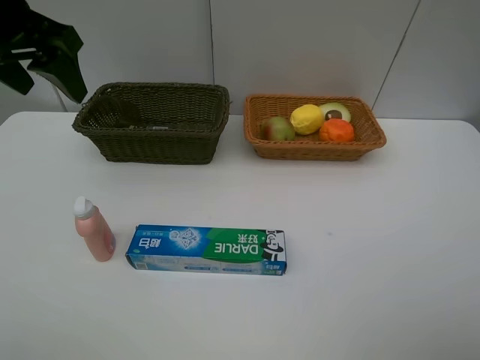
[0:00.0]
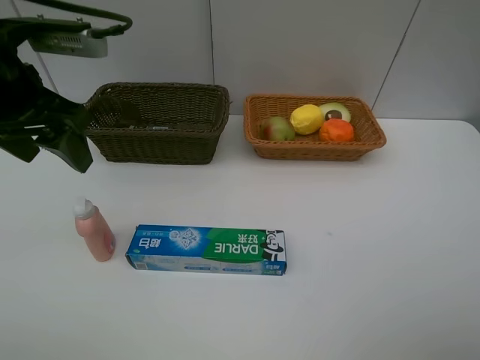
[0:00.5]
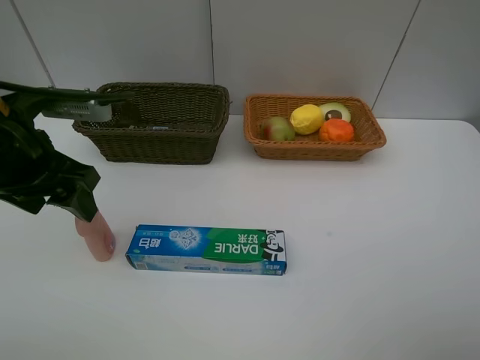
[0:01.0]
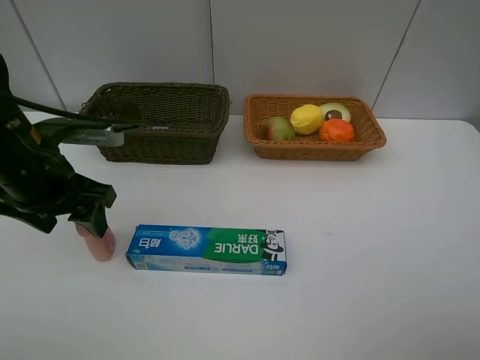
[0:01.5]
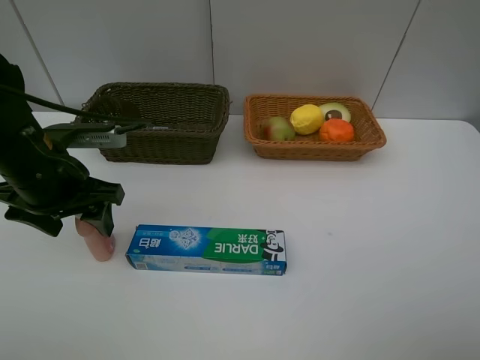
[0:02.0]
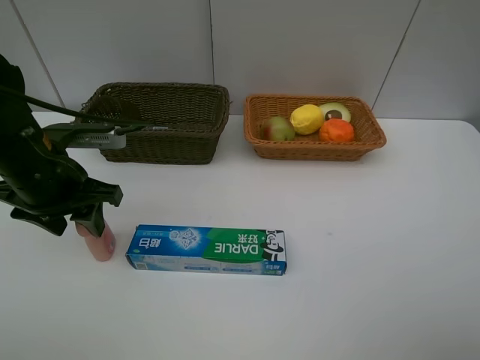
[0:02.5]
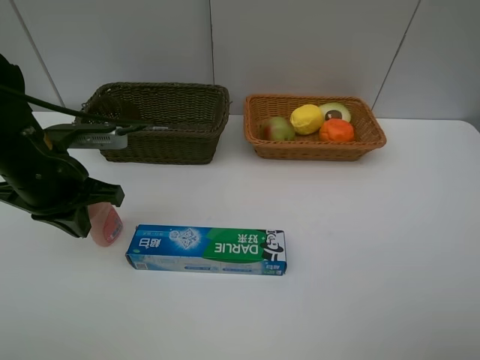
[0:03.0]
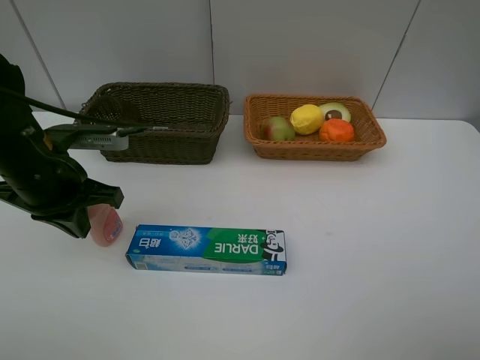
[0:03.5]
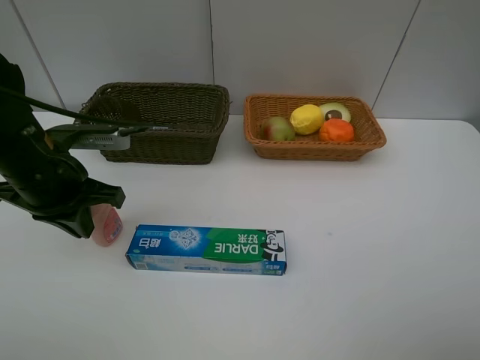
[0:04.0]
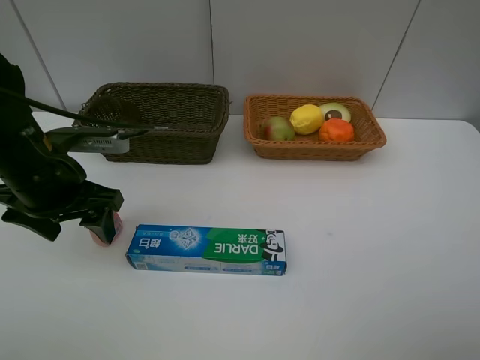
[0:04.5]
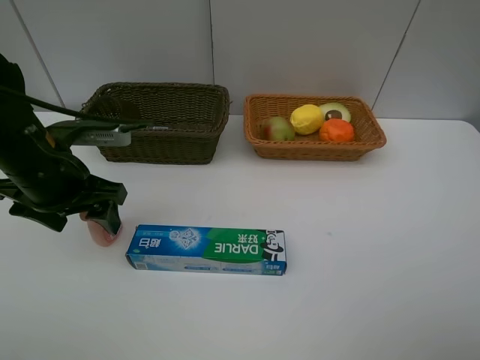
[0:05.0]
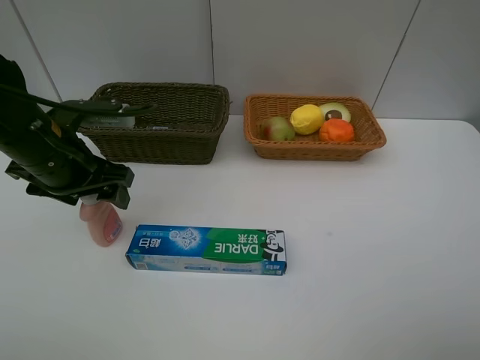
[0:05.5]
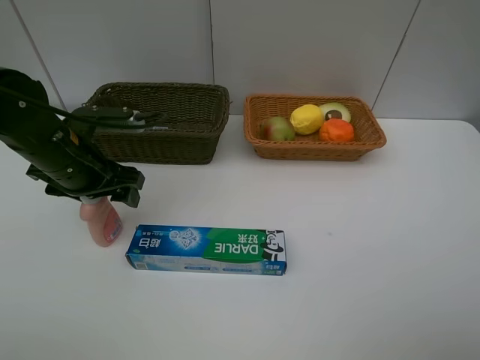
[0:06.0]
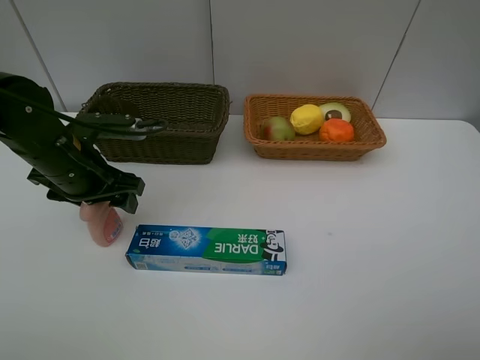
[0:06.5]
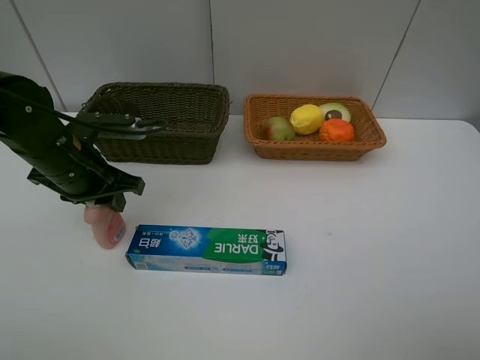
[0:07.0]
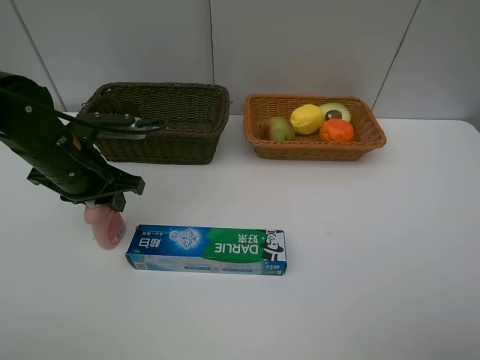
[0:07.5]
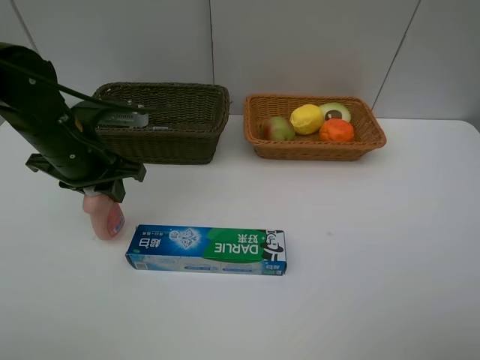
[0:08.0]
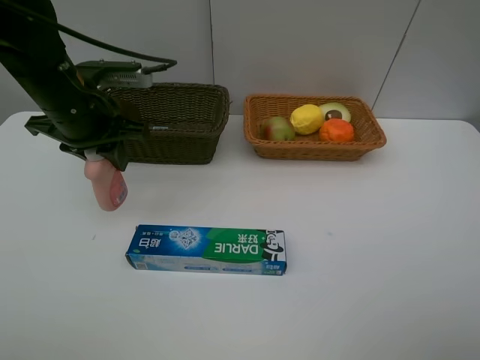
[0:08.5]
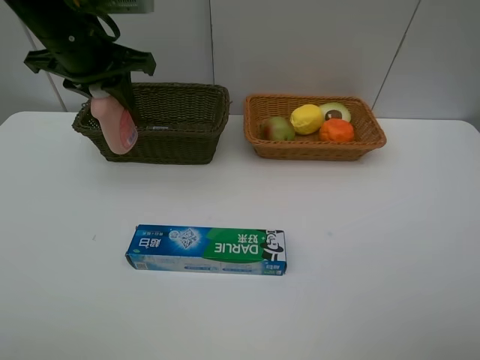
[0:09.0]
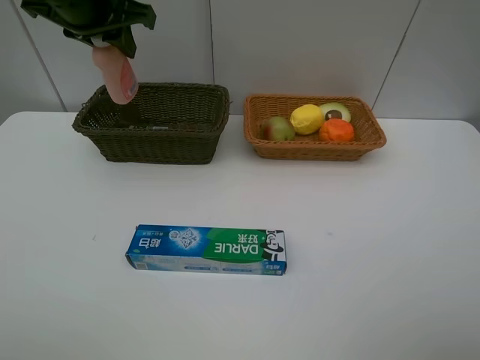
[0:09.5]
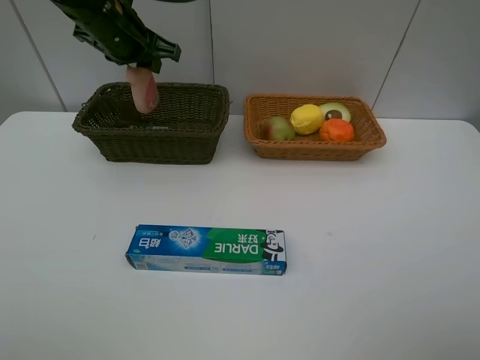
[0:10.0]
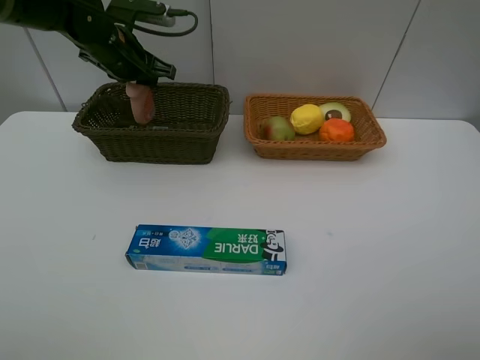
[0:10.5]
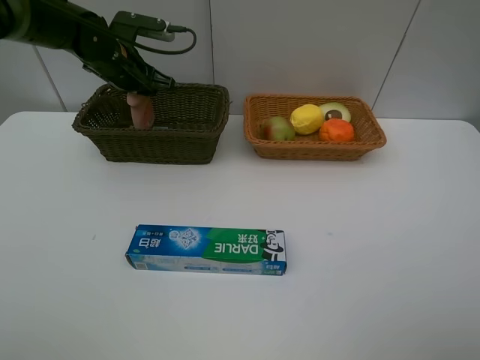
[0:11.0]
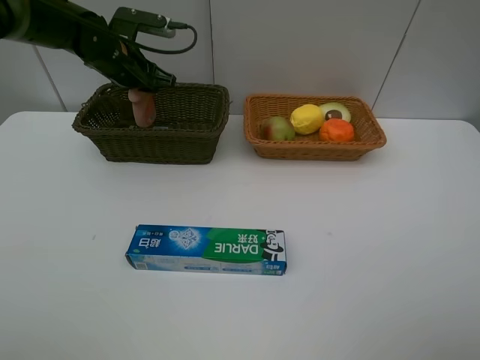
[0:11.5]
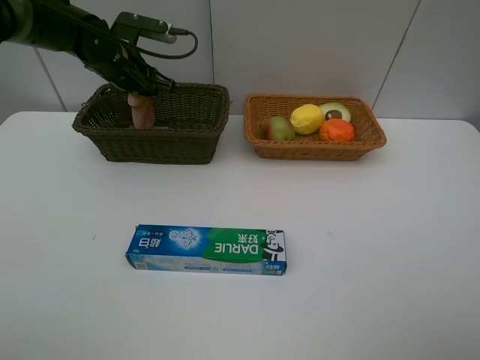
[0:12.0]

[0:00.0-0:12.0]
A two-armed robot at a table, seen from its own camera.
Task of the whole recording: Place multiple objects separately in different baskets.
Step, 0:00.0 to 0:08.0: Pick up the laundry detergent with left gripper.
0:00.0 to 0:02.0: The left gripper moves downward, some 15 cm.
0:02.0 to 0:04.0: The left gripper closes.
0:04.0 to 0:06.0: The left gripper opens.
0:06.0 to 0:08.0: The left gripper closes.
0:08.0 to 0:10.0: The left gripper is displaced forward and upward by approximately 15 cm.
0:10.0 to 0:12.0: The left gripper is displaced downward by about 5 cm.

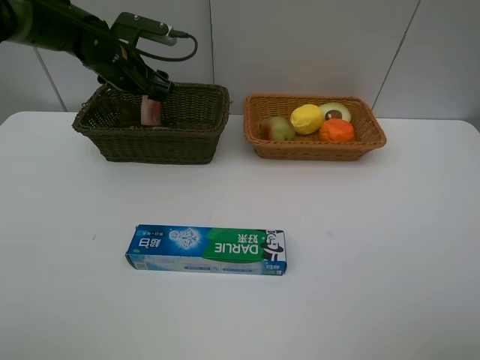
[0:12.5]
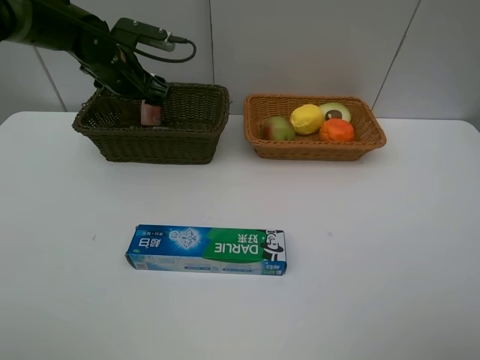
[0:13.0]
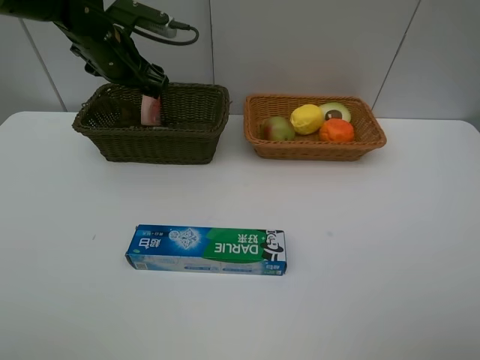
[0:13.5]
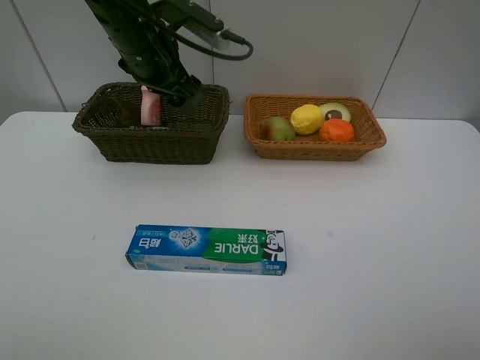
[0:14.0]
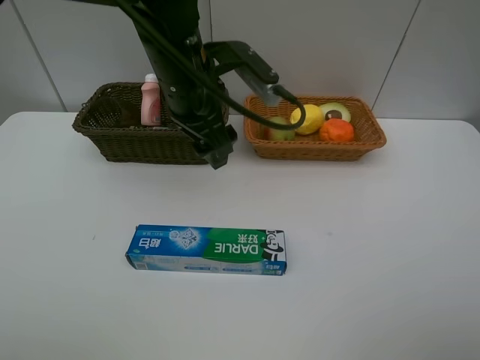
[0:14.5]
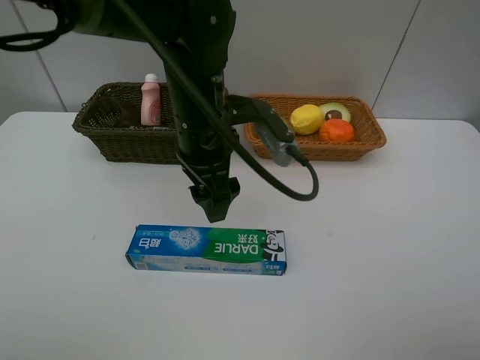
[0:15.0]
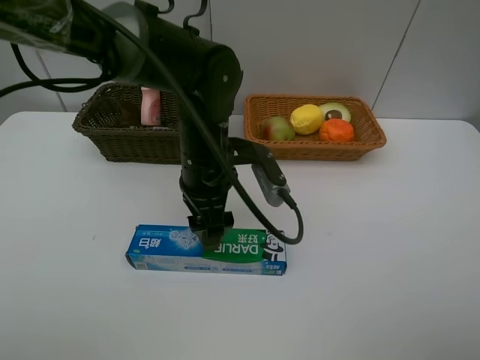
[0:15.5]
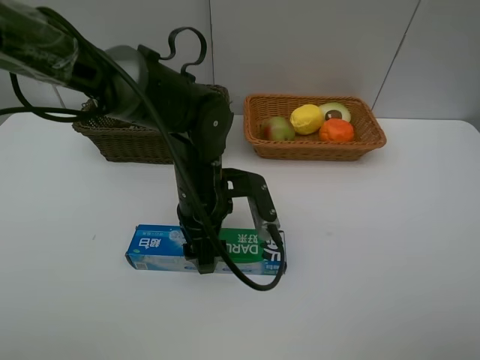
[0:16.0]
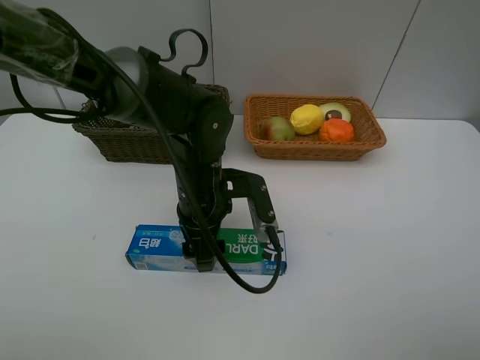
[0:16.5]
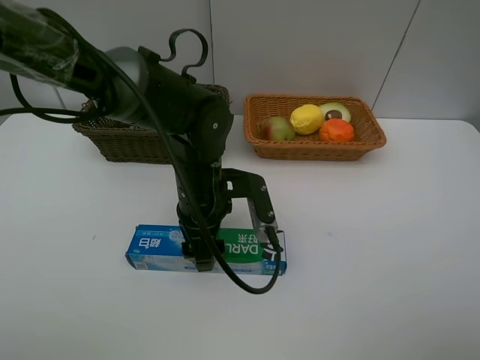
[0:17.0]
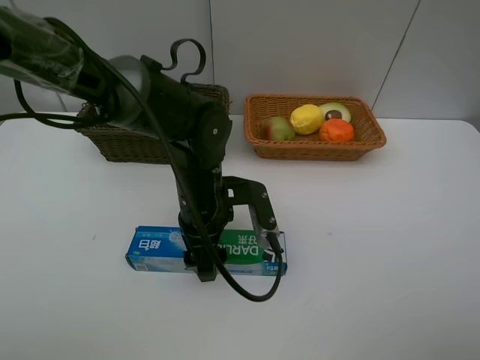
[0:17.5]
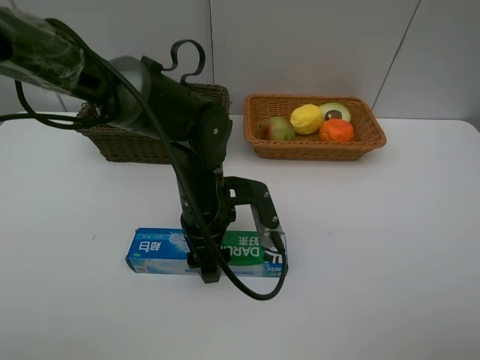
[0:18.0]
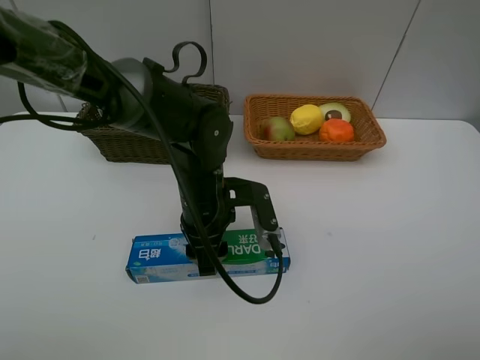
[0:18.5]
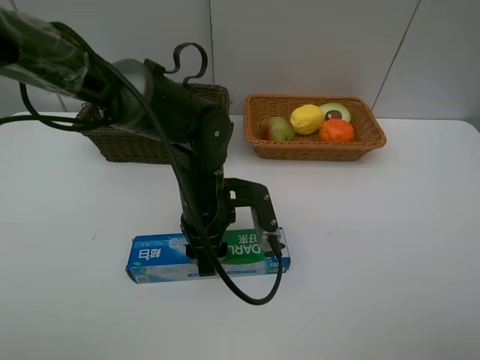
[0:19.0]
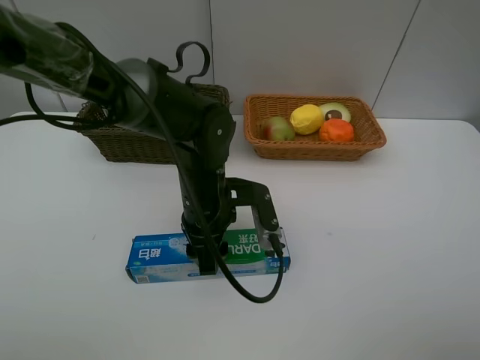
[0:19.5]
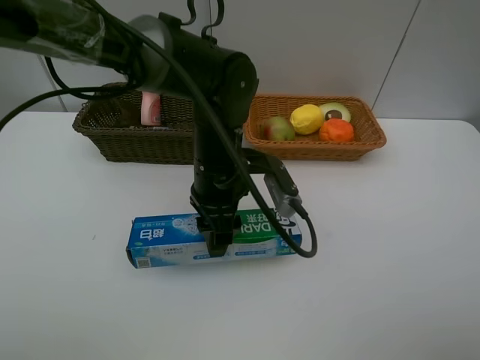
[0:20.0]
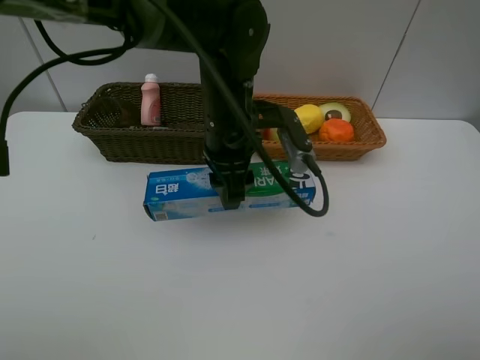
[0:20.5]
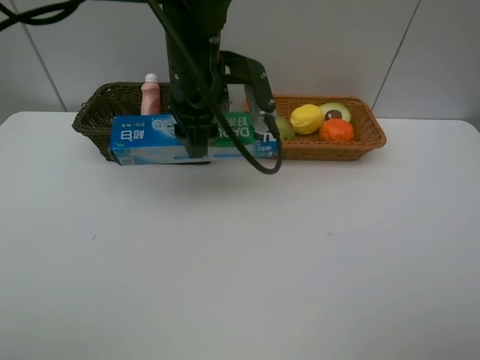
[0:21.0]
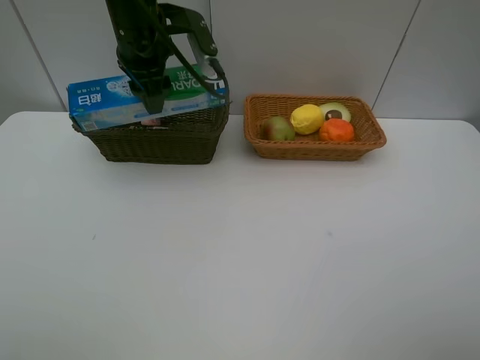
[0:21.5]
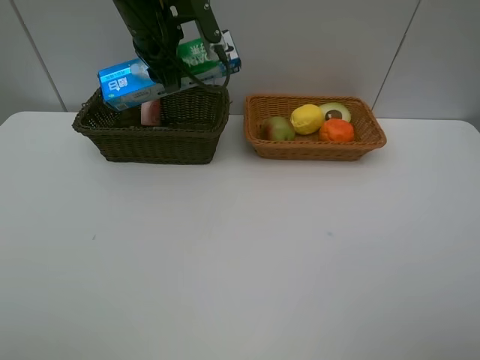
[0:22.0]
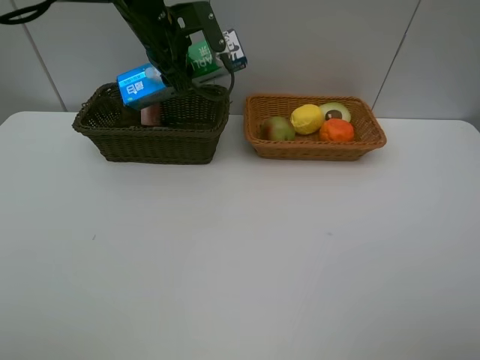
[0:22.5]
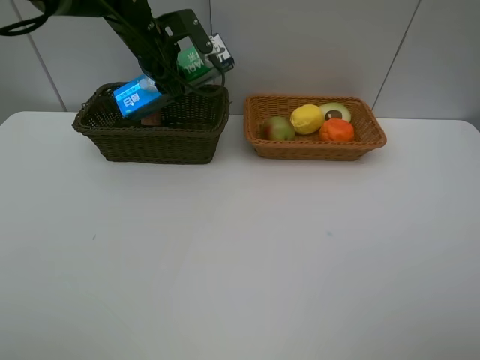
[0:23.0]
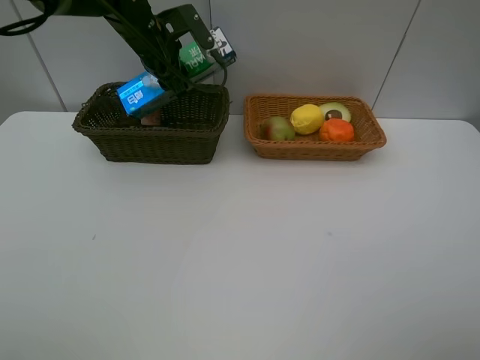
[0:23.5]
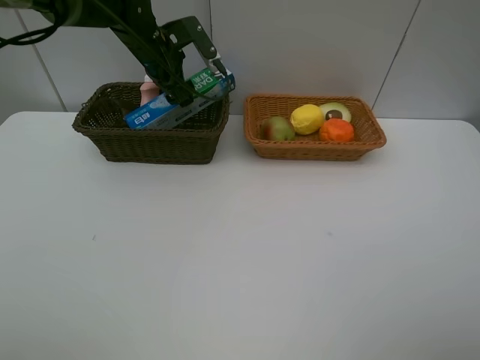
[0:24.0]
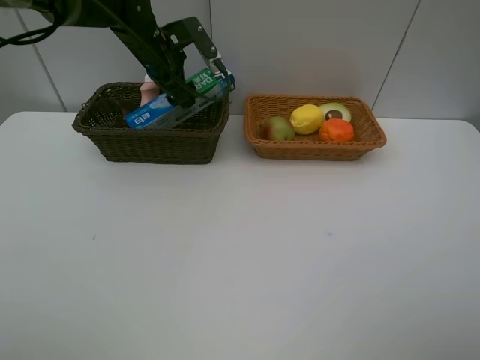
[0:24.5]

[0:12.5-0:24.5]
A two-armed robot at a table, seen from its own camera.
Task of the whole recording: Place multiple objects separately in different baskets.
Step, 0:14.0 to 0:19.5: Pick up toothpaste with left gripper.
0:12.5 to 0:14.5: The left gripper moves backward and to the right, approximately 20 cm.
0:14.5 to 0:16.5: The left gripper shifts approximately 10 cm downward.
0:16.5 to 0:18.5: Neither gripper changes place.
0:18.5 to 0:20.5: The left gripper is displaced upward by approximately 10 cm.
0:20.5 to 0:22.5: The left gripper heads forward and to the left, covering approximately 20 cm.
0:22.5 to 0:24.5: There are only small adjustments of the grippers.

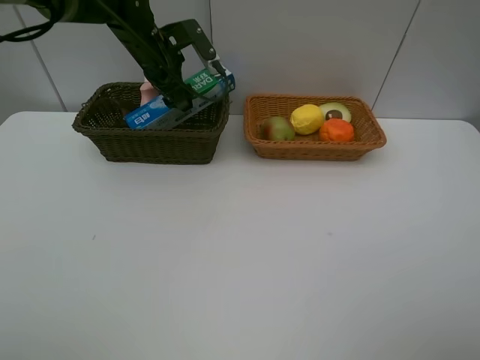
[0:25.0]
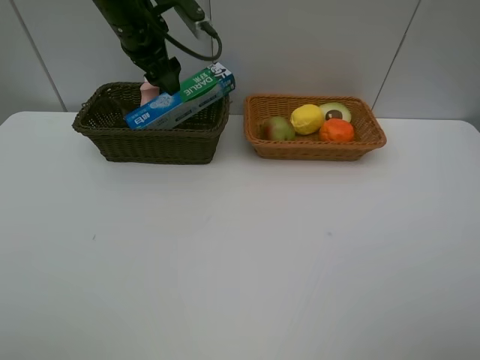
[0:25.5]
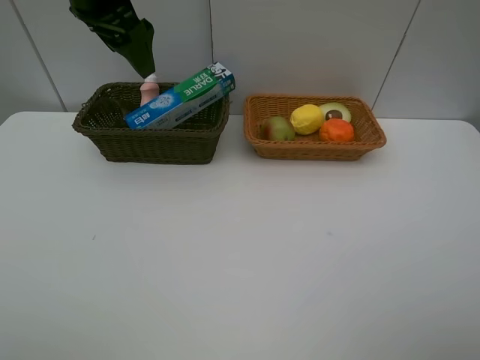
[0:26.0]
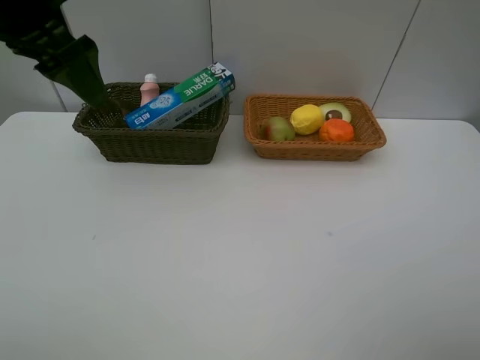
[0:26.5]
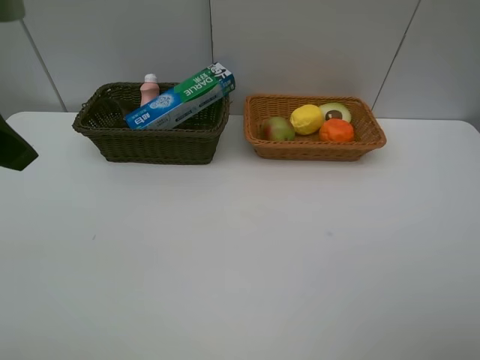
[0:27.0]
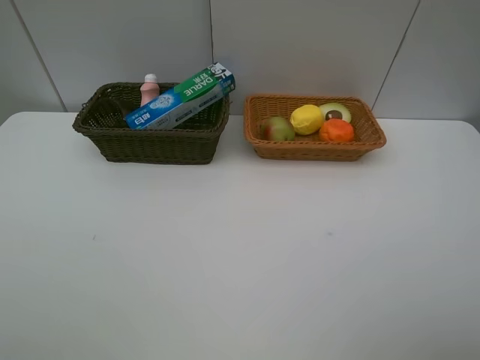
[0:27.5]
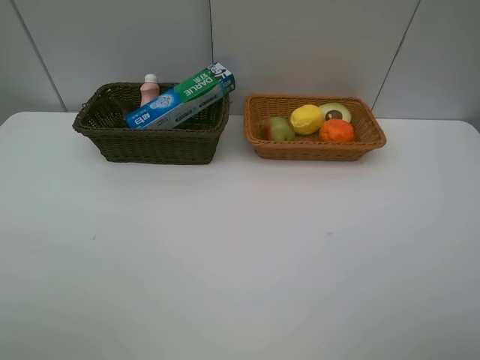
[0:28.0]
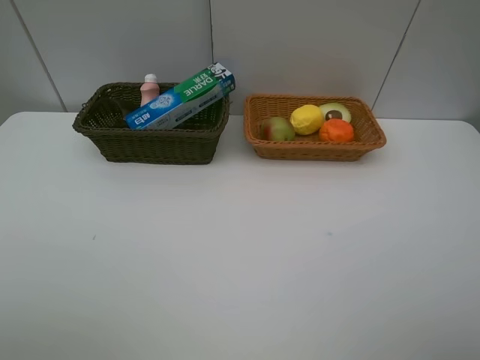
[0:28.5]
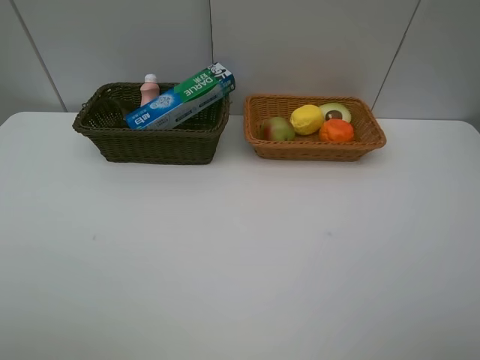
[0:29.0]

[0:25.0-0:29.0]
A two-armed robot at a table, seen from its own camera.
Task of the whole recording: Place multiple objects separately in different baskets.
0:25.0 to 0:27.0: The left gripper moves backward and upward, some 35 cm.
0:27.0 to 0:29.0: The left gripper travels backward and downward by about 20 cm.
